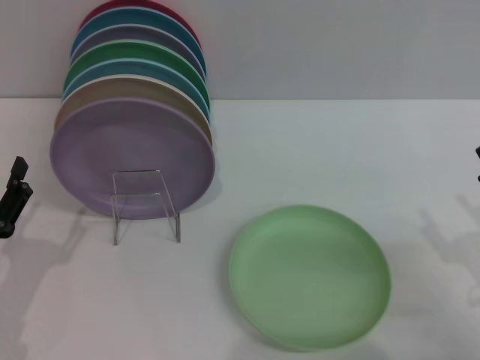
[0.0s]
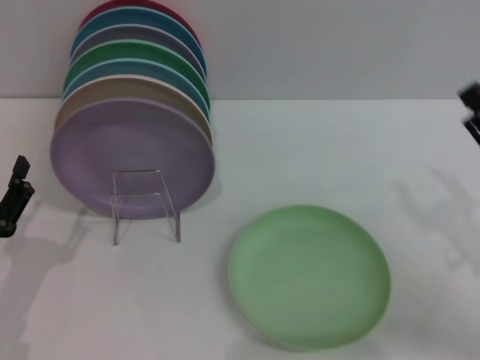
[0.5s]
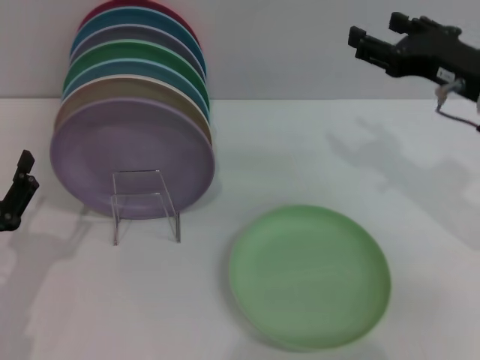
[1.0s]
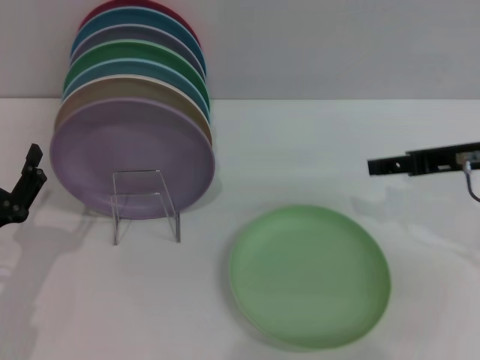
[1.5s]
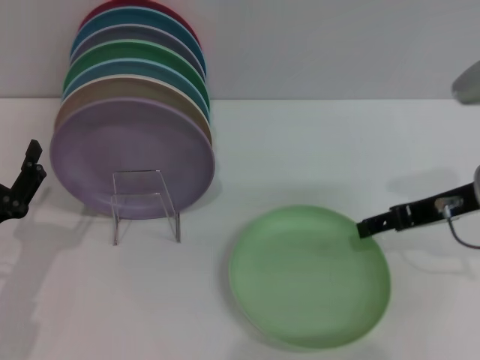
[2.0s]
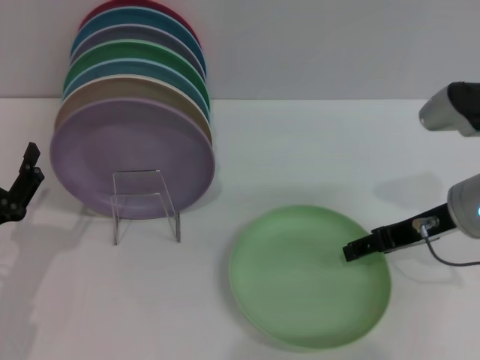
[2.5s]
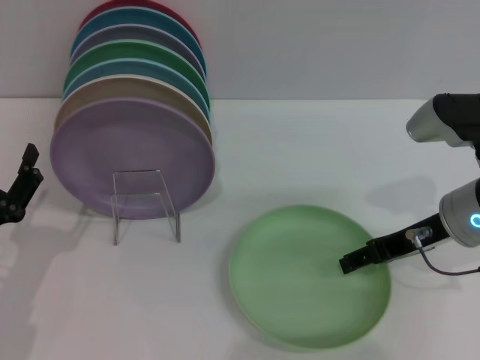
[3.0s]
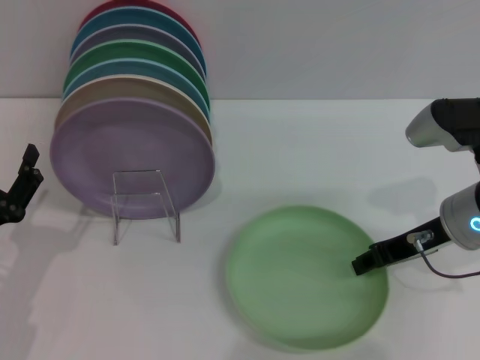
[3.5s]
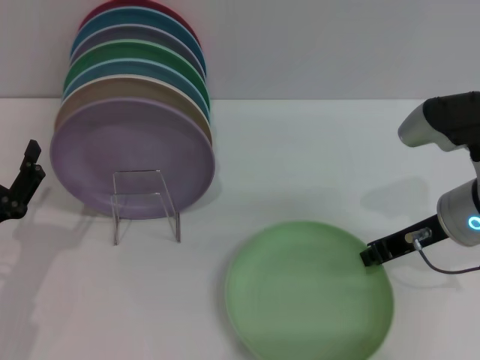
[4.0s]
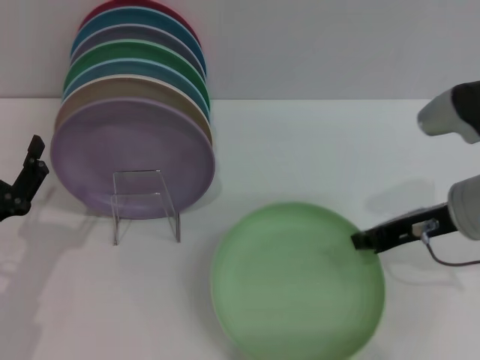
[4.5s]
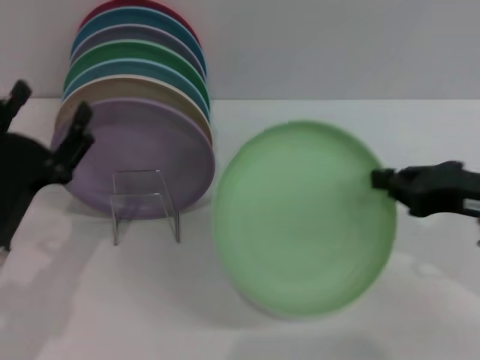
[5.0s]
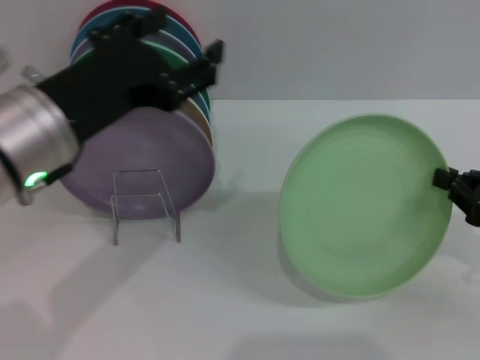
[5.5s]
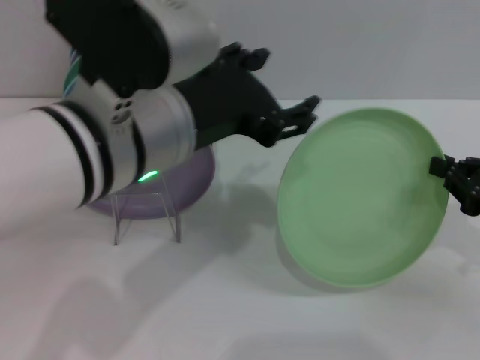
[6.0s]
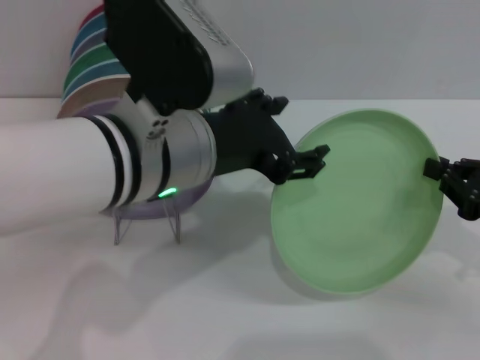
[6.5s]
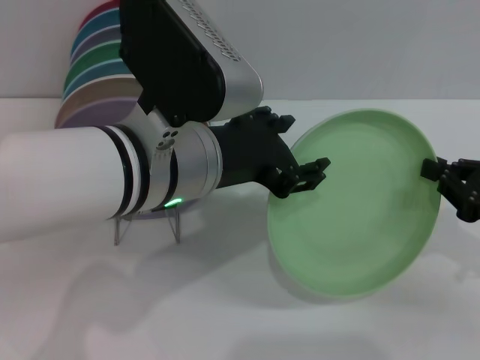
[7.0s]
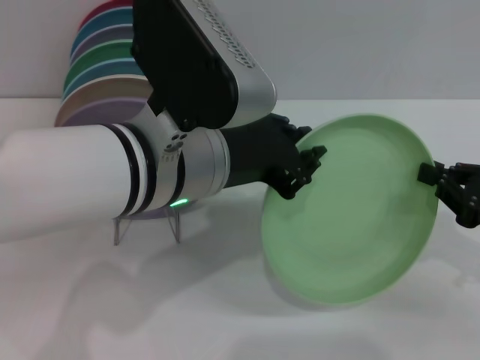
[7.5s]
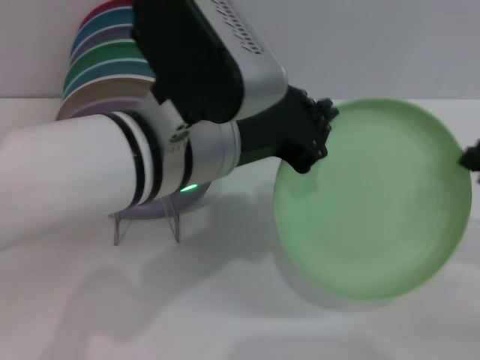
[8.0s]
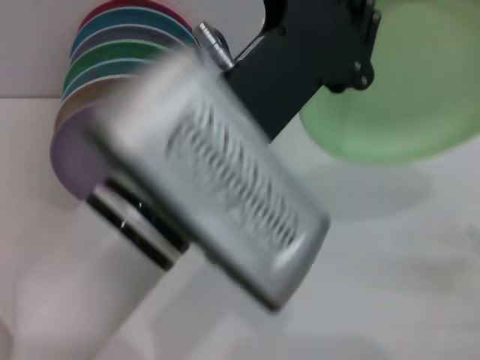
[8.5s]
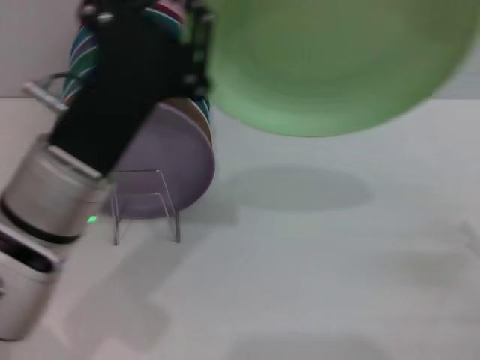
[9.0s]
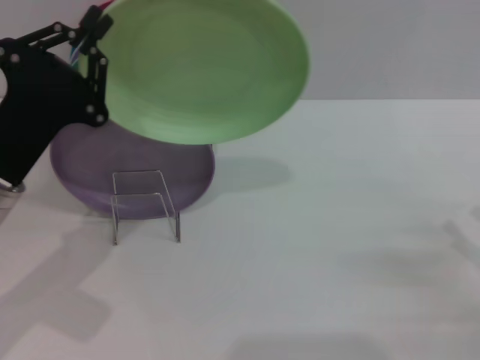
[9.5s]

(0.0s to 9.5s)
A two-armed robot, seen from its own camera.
Task of the whole recording: Grip the plate with one hand, pass it to the other, then set it on the shelf.
Step, 0.0s - 4.5s: Pick up the plate with the right gripper.
Step, 5.0s - 8.0s: Pass the plate from the right gripper to the left gripper.
0.0s - 2.0s: The right gripper travels forward, upward and to the left by roughly 20 cm.
2.0s - 4.0s: The right gripper closes its fingers.
4.0s - 5.5s: The left gripper is displaced upward and to the right by about 20 cm, while the right gripper travels to the right and backward by about 15 cm.
5.5s - 7.5s: The left gripper travels to the right by some 10 cm, and closes its fingers.
7.5s - 9.5s: The right gripper travels backward and downward by approximately 10 cm, and opens up, while the left gripper moves to the left and downward, approximately 20 cm, and closes its fingers.

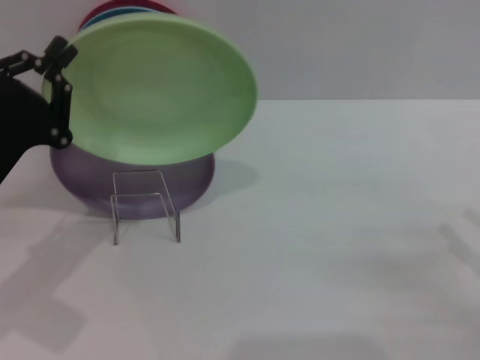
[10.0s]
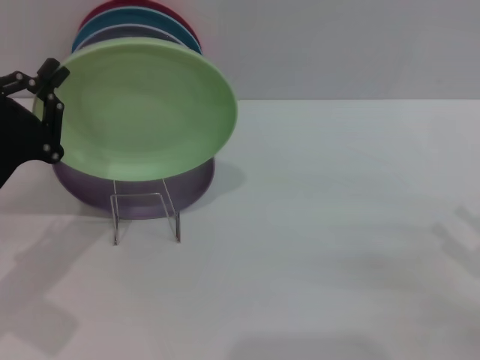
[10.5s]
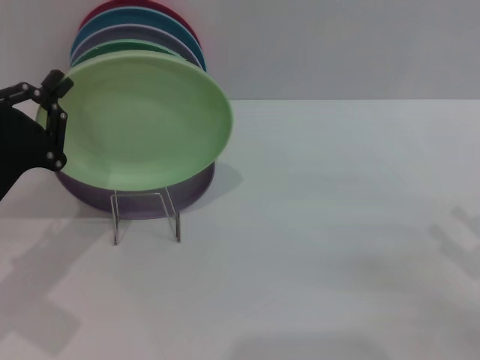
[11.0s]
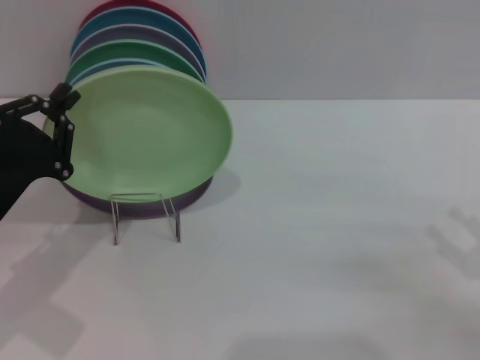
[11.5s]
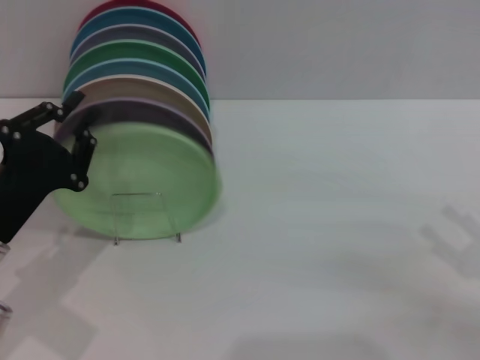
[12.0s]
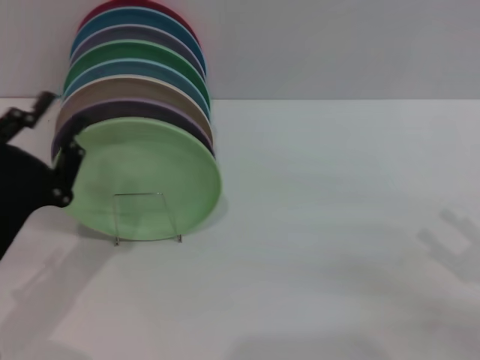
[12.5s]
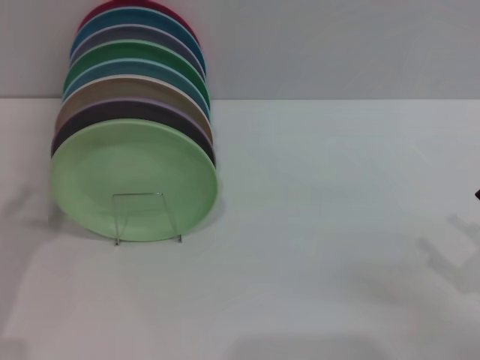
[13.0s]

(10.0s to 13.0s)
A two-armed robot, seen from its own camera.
Task of the whole recording: Grip the plate with one hand, pass it to the other, then set it on the shelf.
Step, 10.0s - 12.5s: Place the plate on the shelf with the left gripper.
10.0s - 11.5s: The grippers make only small movements.
11.5s - 13.0s: The left gripper changes place by about 5 cm, and opens up.
